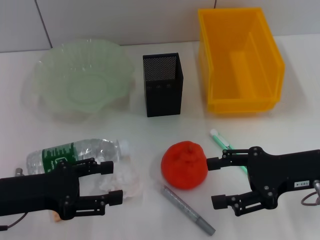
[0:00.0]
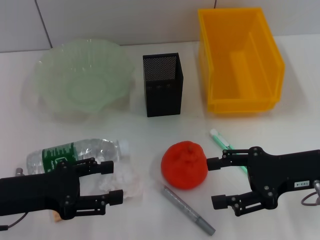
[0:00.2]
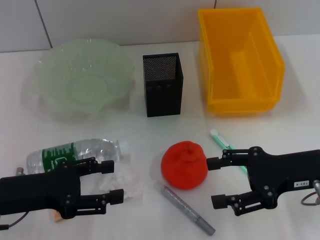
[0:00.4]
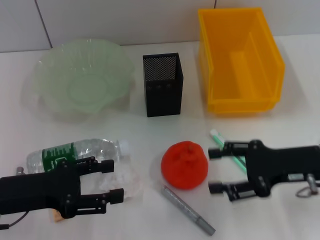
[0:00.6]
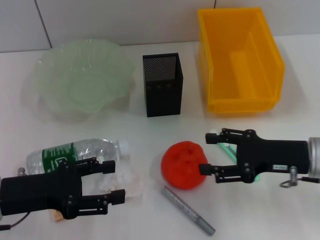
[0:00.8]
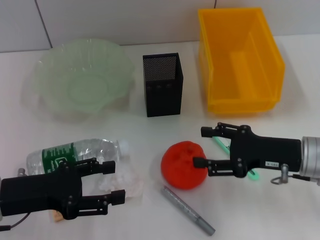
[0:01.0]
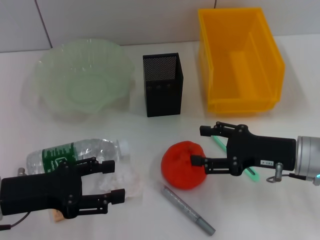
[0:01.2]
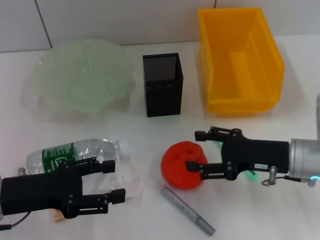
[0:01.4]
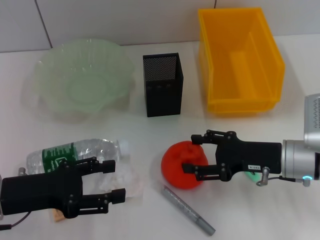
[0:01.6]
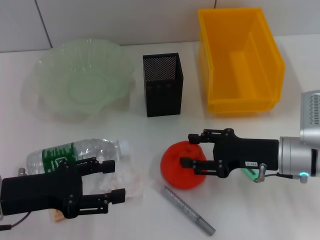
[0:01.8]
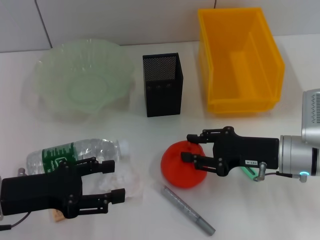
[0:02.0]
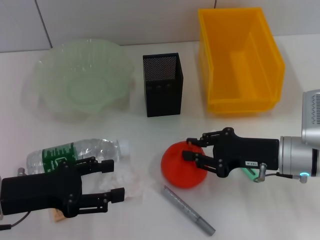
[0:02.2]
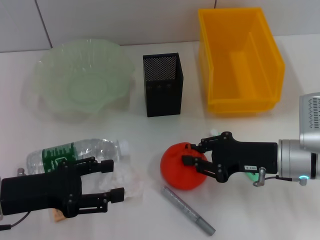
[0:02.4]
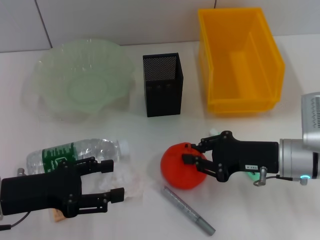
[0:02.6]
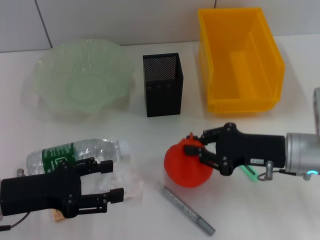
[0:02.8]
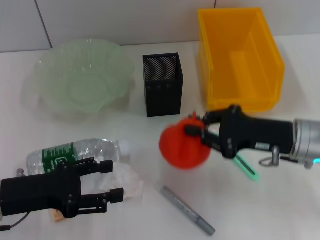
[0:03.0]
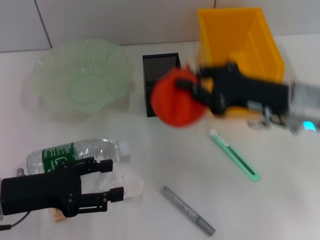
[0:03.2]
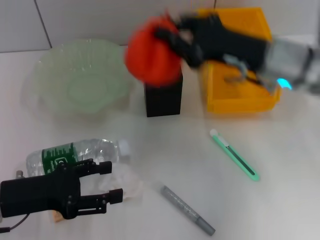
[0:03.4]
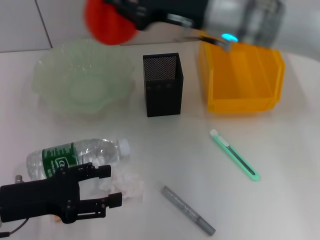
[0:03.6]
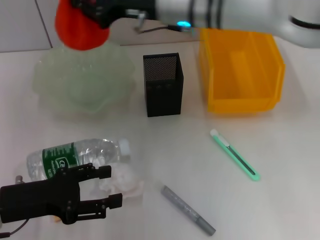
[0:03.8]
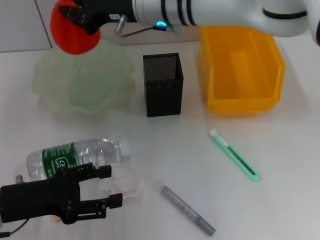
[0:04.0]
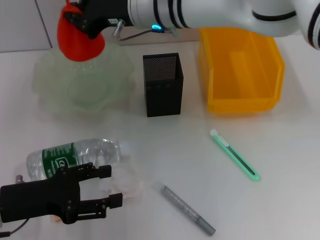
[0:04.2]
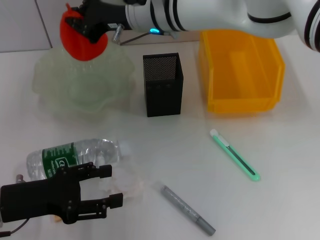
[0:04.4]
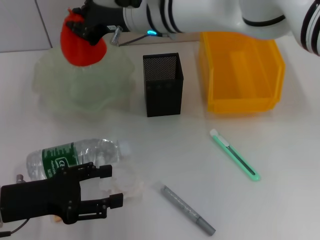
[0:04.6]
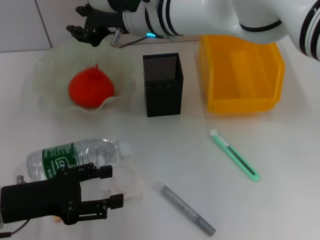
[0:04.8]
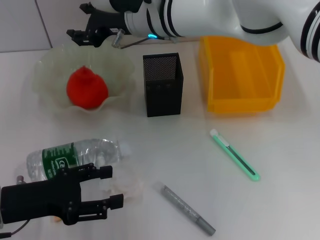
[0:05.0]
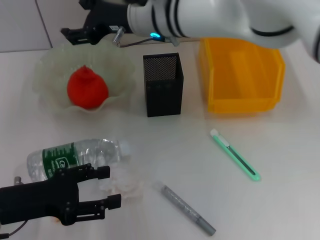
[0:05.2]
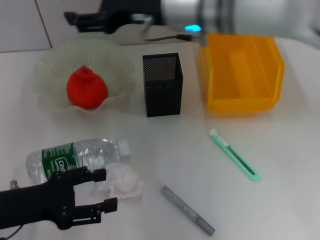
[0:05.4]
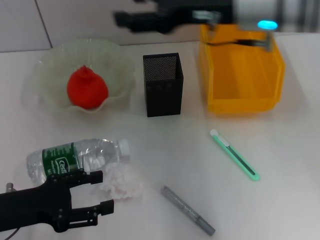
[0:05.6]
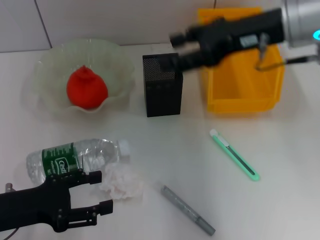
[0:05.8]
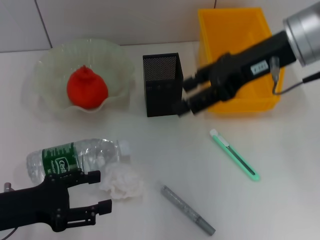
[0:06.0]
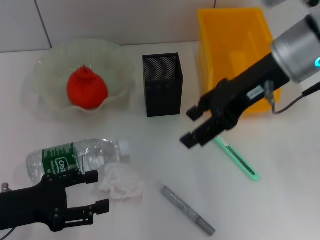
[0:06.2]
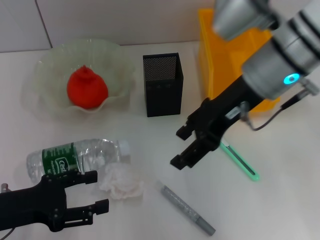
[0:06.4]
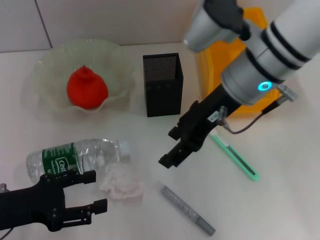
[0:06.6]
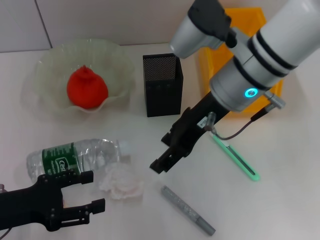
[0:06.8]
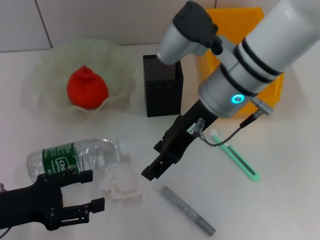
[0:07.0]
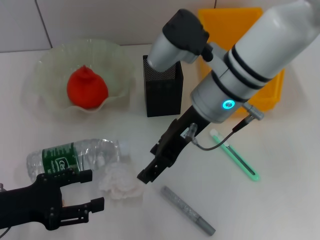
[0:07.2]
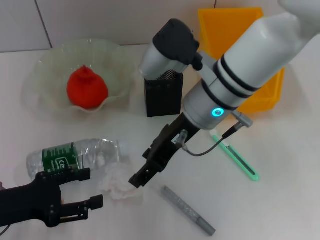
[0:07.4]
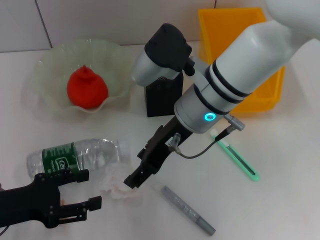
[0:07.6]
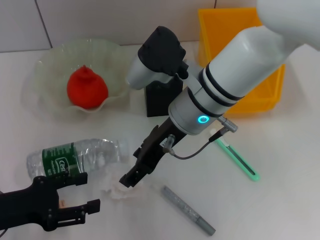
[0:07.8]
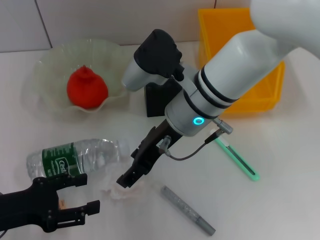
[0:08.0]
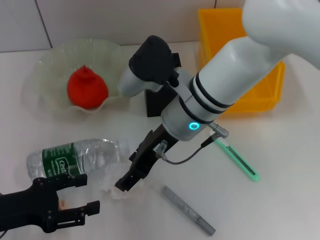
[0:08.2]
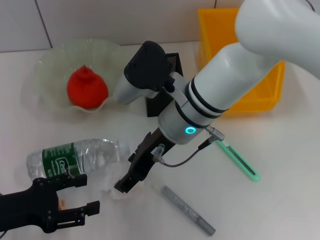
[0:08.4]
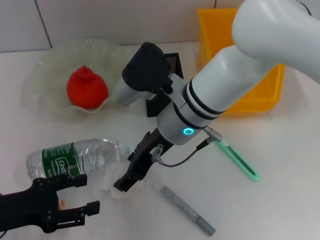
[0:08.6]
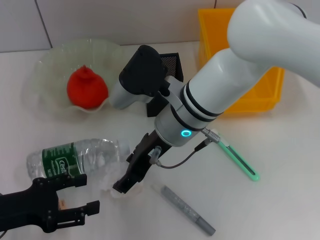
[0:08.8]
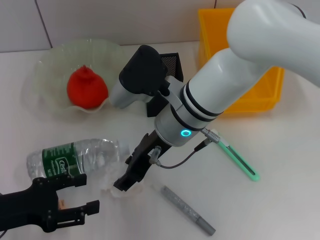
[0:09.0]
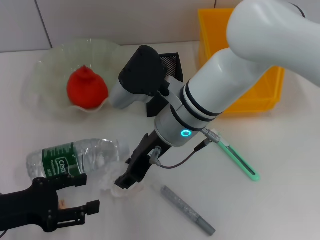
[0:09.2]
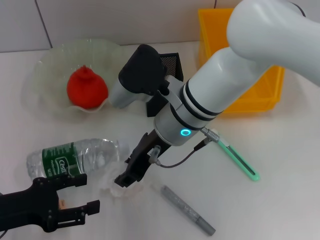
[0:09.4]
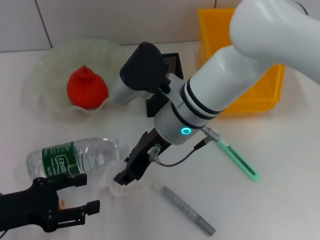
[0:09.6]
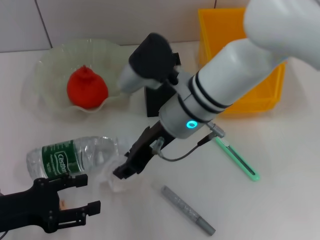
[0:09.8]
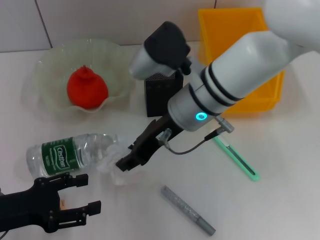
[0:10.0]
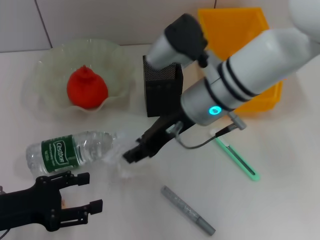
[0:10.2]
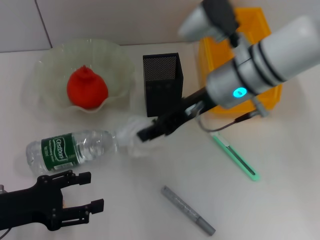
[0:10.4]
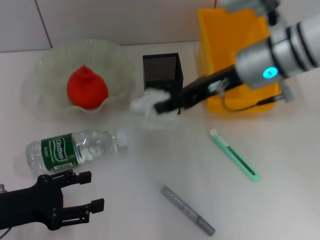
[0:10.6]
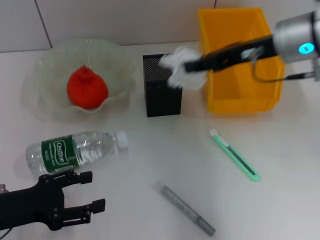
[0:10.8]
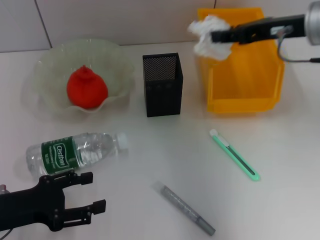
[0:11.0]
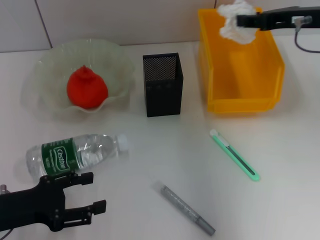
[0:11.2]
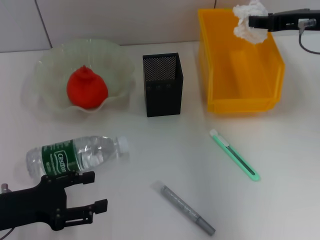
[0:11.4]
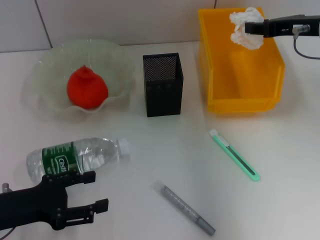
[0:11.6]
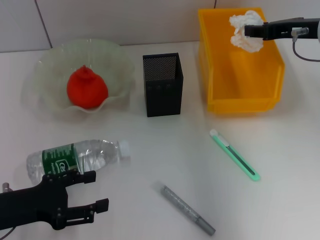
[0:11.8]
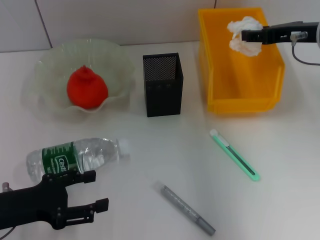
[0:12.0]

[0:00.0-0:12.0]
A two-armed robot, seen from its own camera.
Step, 0:00.0 to 0:02.4: Grab the orange with the right hand.
Step, 0:02.6 to 0:04.8: Place the orange into the fruit bowl with the right hand.
Step, 0:05.0 to 0:09.4: Grab the paper ball with the right hand.
0:00.0 to 0:01.6: The right gripper is displaced downward by about 5 cm.
0:01.6 to 0:03.0: The right gripper closes up.
0:03.0 to 0:04.4: The right gripper is displaced to the left, forward and upward by about 30 cm.
0:04.4 to 0:06.0: The right gripper is displaced to the right and backward by approximately 20 cm, and opens its fingers.
0:06.0 to 0:07.6: The right gripper travels to the left and downward by some 15 cm.
0:07.6 to 0:09.0: The grippers stay close to where they were, moving slightly.
0:09.0 to 0:10.4: The right gripper travels to the right by roughly 10 cm, and closes up.
0:10.4 to 0:12.0: The right gripper goes about 15 cm to the right.

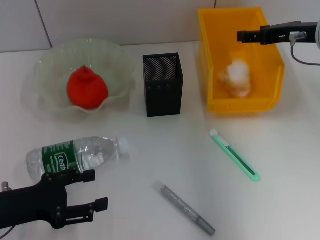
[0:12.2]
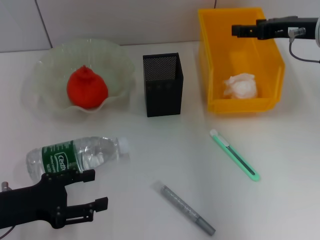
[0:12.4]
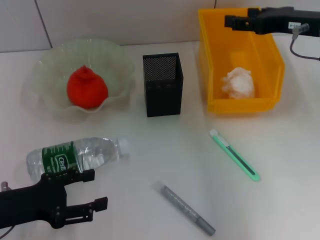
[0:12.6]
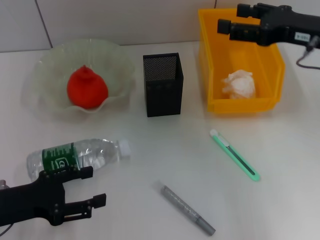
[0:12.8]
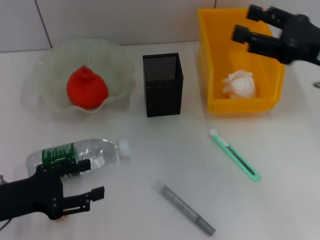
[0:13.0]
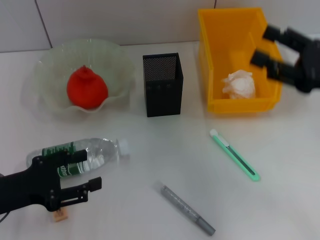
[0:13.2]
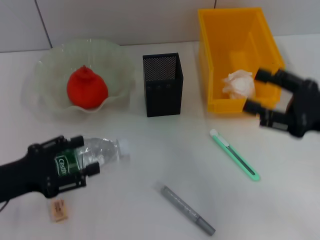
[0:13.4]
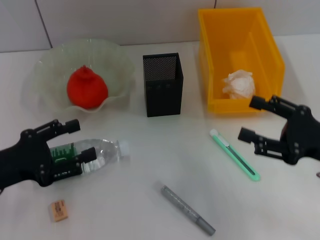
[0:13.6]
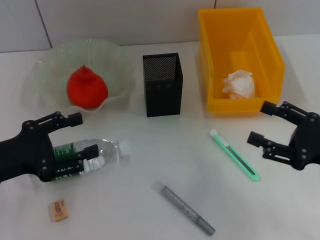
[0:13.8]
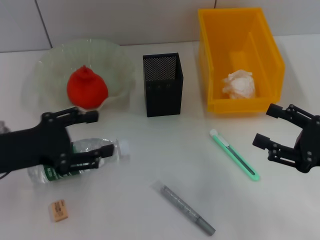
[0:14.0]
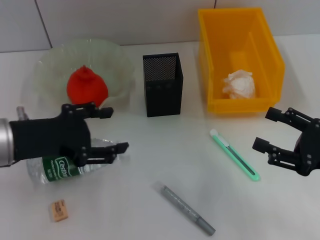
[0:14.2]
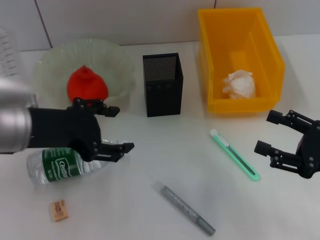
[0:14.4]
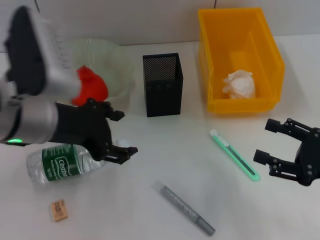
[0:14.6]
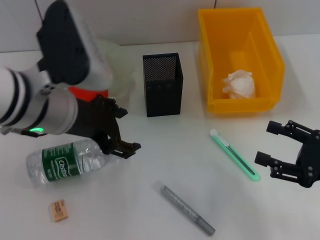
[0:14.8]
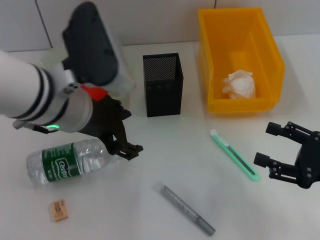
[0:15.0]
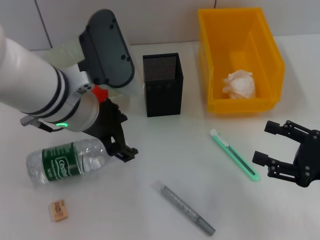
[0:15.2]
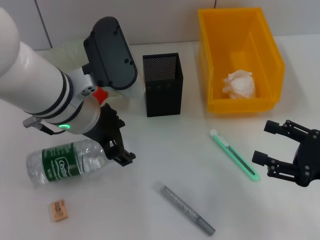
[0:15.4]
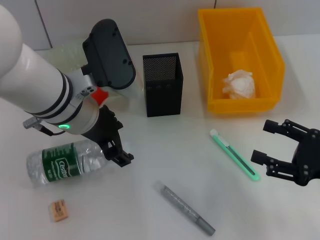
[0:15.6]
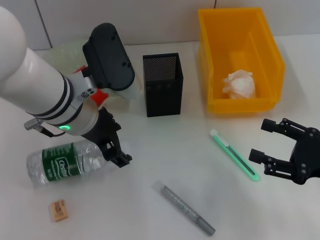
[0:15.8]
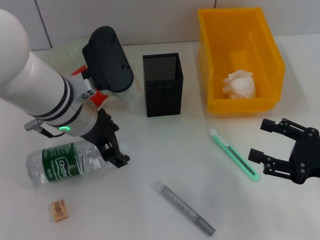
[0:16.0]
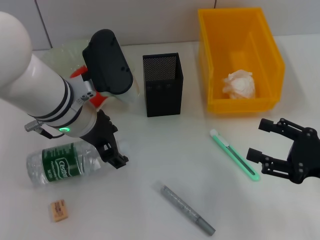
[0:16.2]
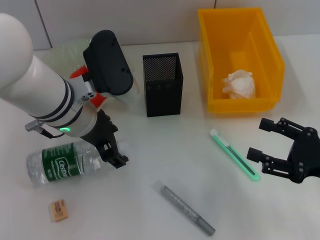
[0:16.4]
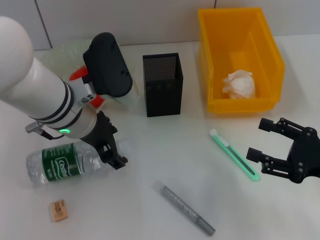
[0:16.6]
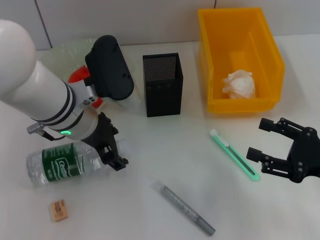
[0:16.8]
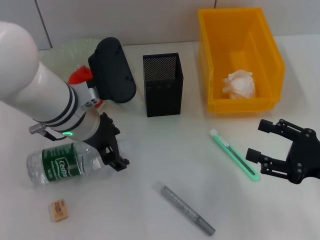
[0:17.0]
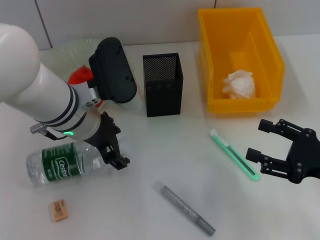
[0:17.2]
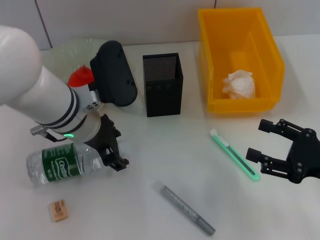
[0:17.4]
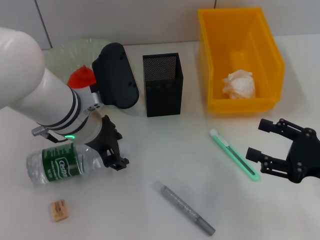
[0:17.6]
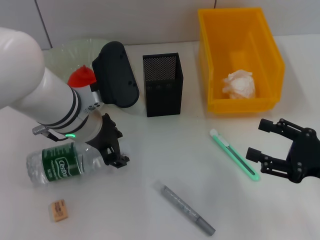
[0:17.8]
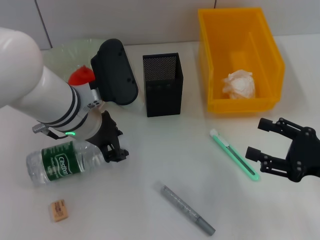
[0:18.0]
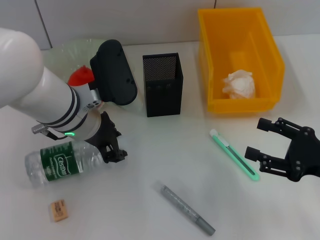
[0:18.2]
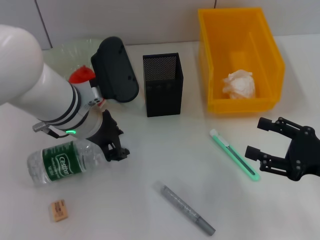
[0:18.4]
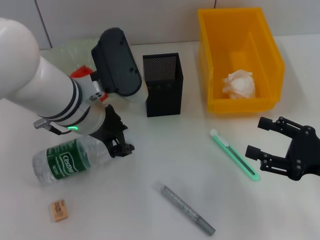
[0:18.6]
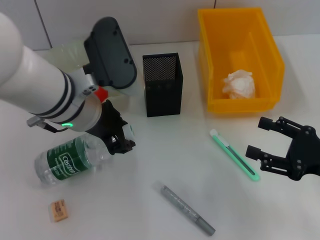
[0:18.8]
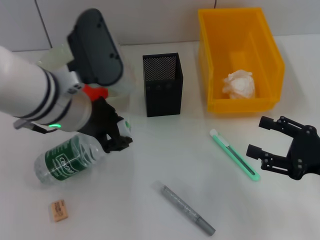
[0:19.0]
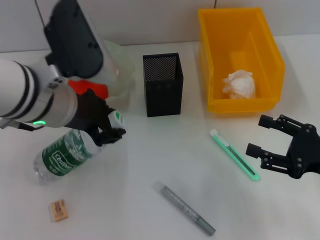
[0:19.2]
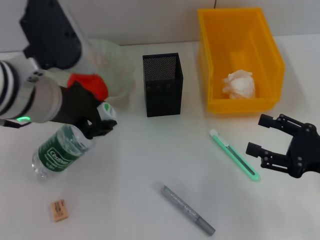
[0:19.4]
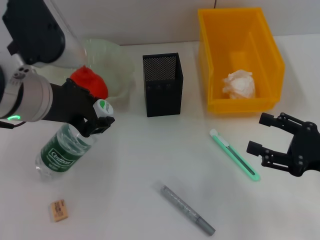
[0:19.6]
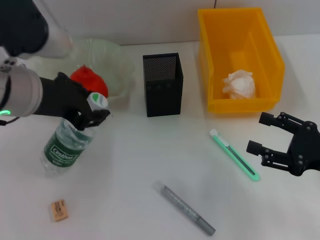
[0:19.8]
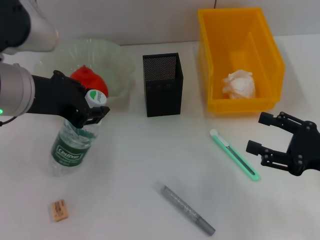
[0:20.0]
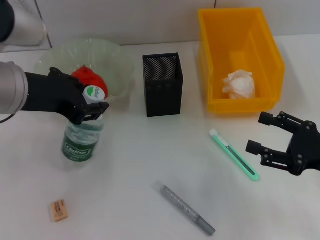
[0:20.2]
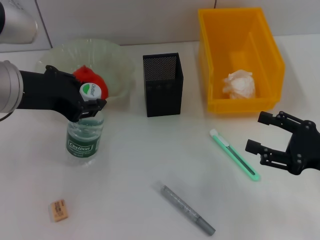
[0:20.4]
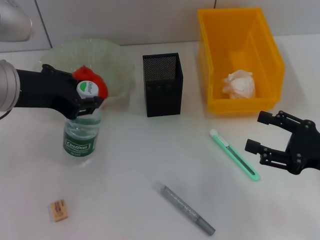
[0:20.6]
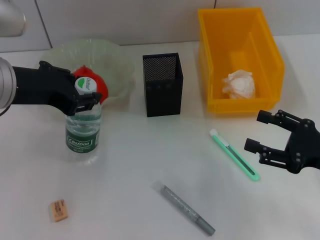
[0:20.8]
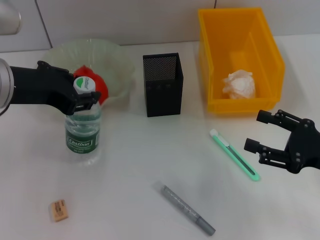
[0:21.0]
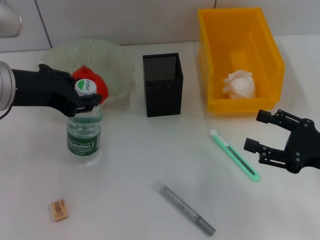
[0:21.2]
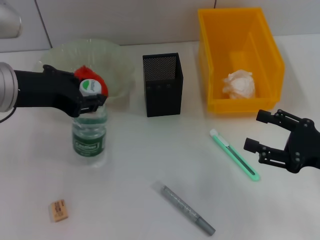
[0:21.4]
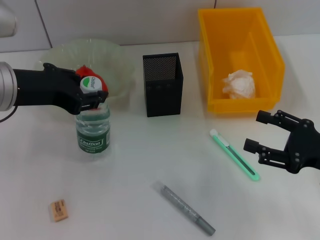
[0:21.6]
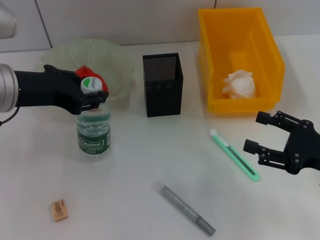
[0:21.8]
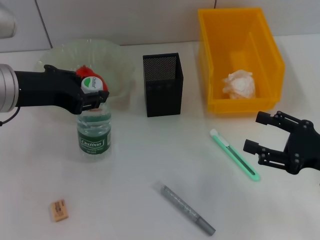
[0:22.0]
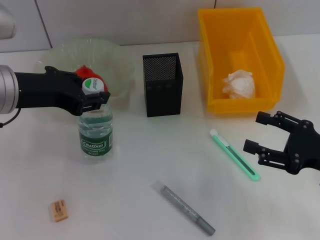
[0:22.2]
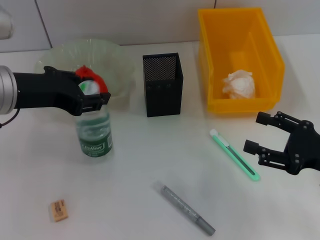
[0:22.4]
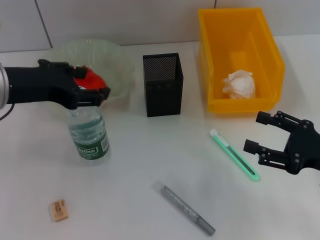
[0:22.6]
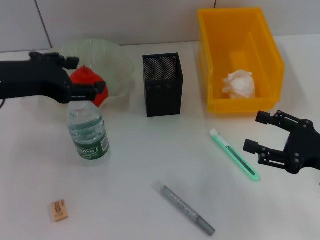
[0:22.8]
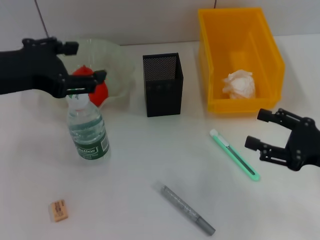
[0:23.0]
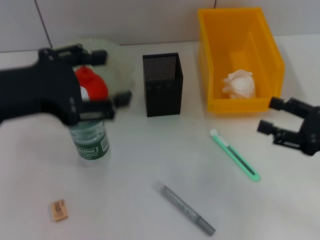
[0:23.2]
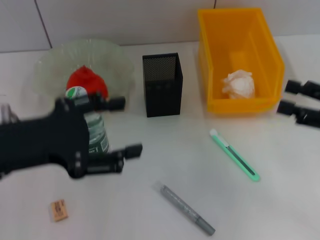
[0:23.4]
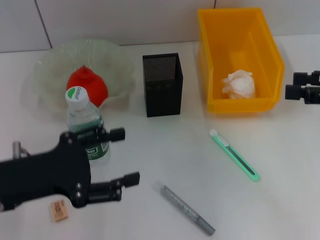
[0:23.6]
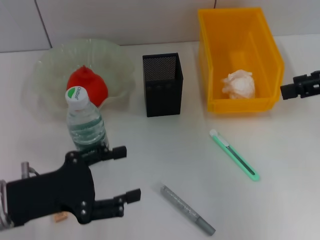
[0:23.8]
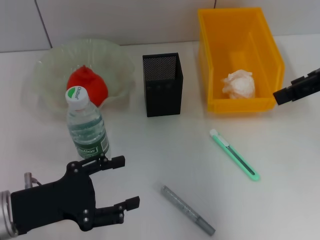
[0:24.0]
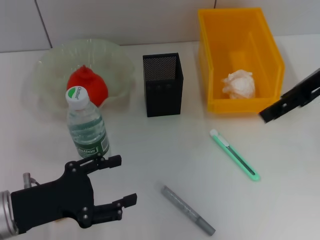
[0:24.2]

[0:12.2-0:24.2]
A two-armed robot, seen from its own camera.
Step, 0:12.8 to 0:18.0: Grab the water bottle with the left hand.
Step, 0:18.4 to 0:22.4: Place the water bottle on the table with the left hand.
0:12.2 to 0:13.8: The left gripper changes place by roughly 5 cm. Meanwhile the right gripper shifts approximately 20 cm backward and downward.
0:13.8 to 0:15.2: The left gripper travels to the right and upward by some 20 cm.
0:15.2 to 0:16.6: The grippers move only a little.
0:16.6 to 0:18.2: The left gripper closes its fingers.
0:18.2 to 0:19.8: The left gripper goes roughly 10 cm upward and to the left.
0:19.8 to 0:21.2: The grippers move only a little.
0:21.2 to 0:22.6: The grippers move only a little.
0:22.6 to 0:24.2: The left gripper travels downward and backward by about 15 cm, and opens up, while the right gripper travels upward and forward by roughly 20 cm.
